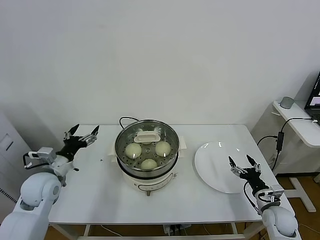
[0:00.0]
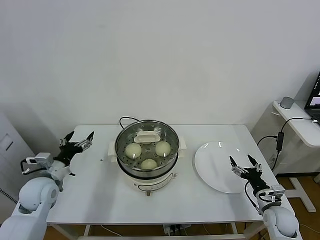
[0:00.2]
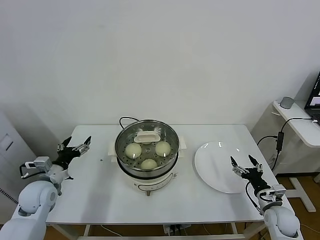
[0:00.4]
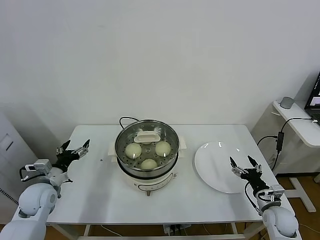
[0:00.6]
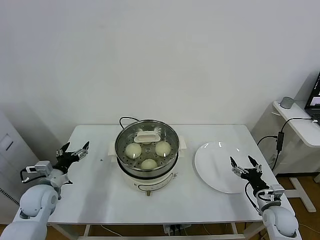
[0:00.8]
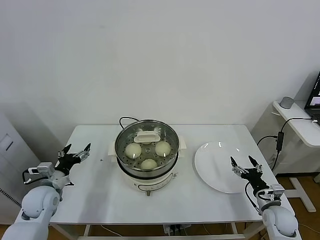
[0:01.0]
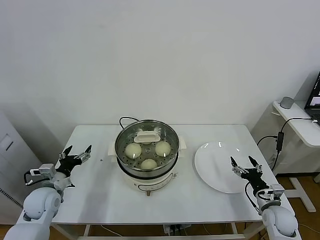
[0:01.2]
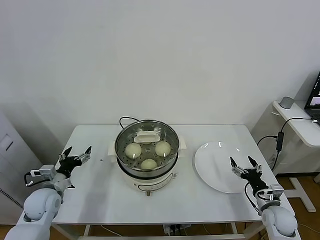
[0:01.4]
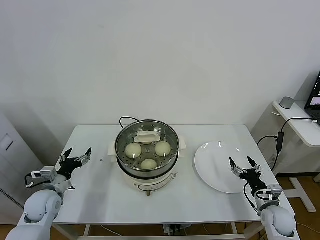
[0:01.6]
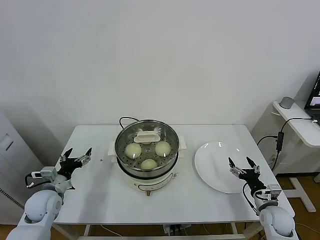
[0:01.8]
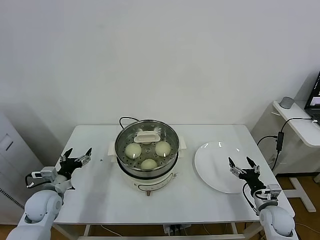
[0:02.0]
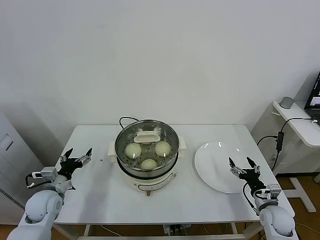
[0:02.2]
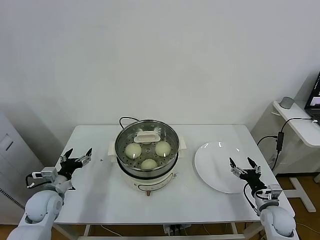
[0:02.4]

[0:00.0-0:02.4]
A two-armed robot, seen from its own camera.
Task of the whole recording: take steamed baozi put them in steamer.
0:00.0 to 0:01.2: The left gripper travels downward by some 10 cm.
0:01.2 to 0:02.4: The grippers make only small movements.
